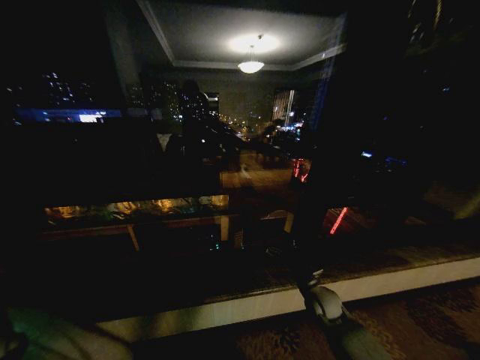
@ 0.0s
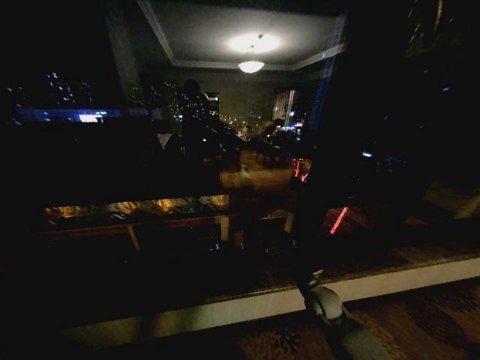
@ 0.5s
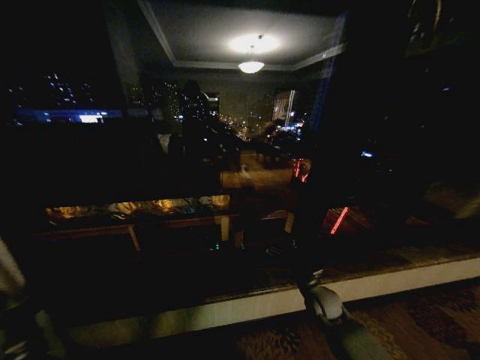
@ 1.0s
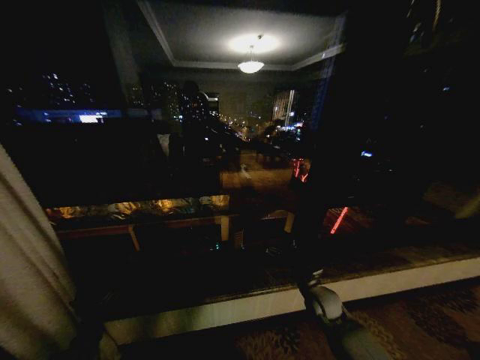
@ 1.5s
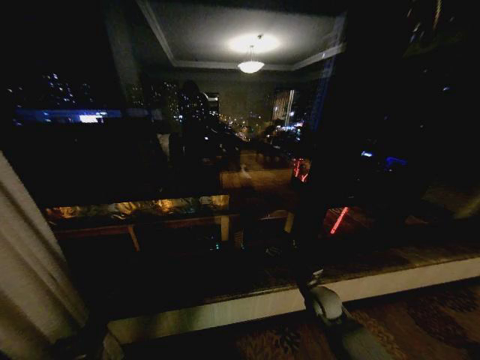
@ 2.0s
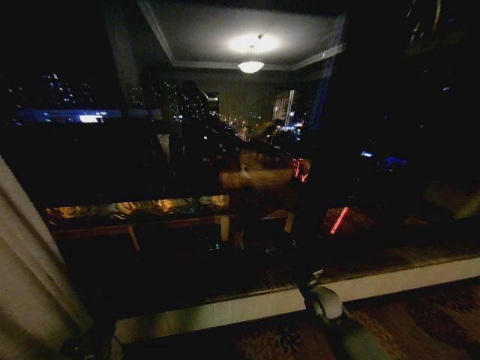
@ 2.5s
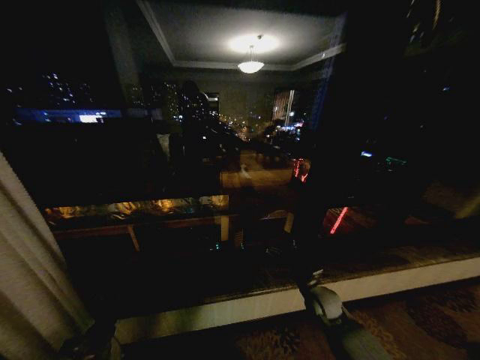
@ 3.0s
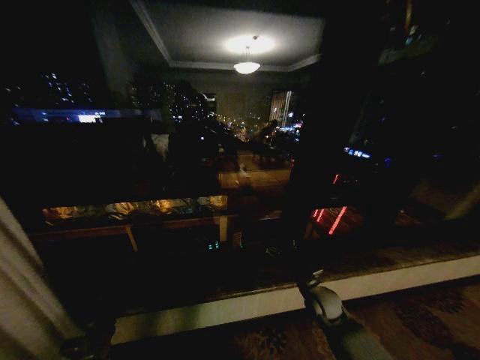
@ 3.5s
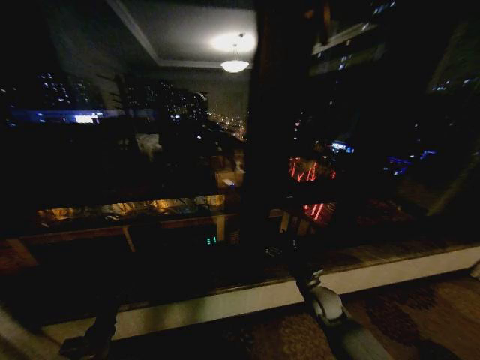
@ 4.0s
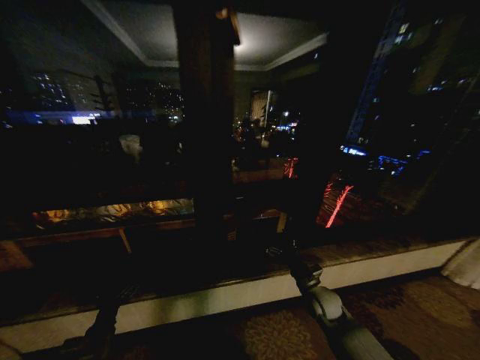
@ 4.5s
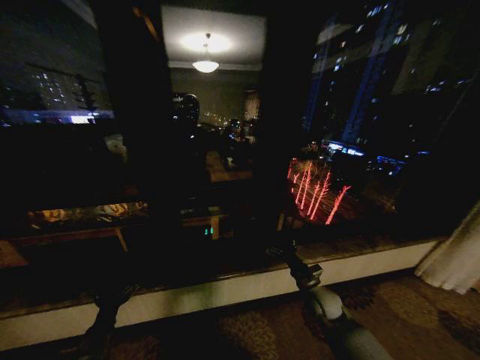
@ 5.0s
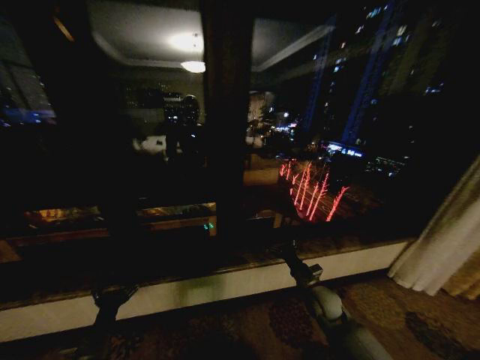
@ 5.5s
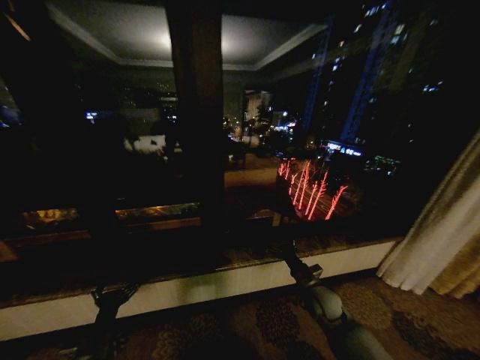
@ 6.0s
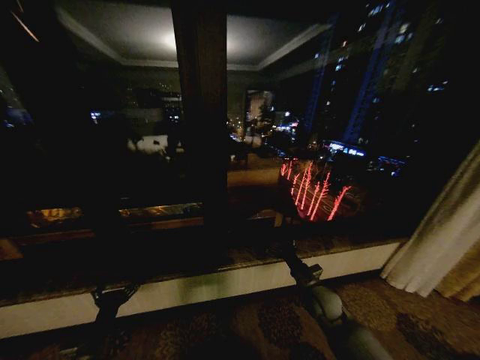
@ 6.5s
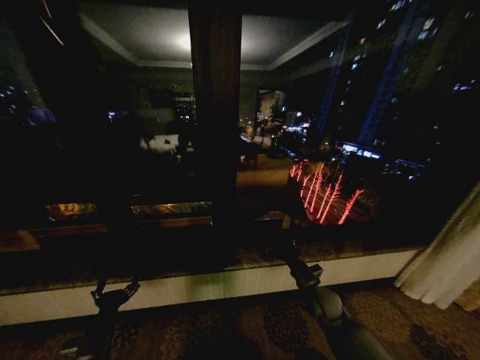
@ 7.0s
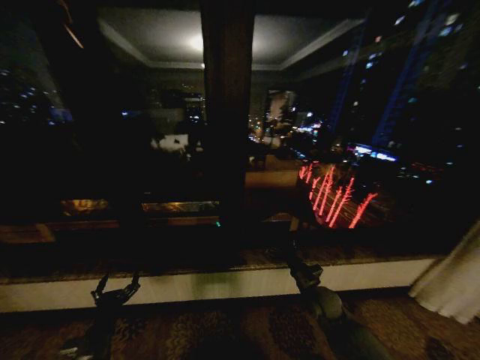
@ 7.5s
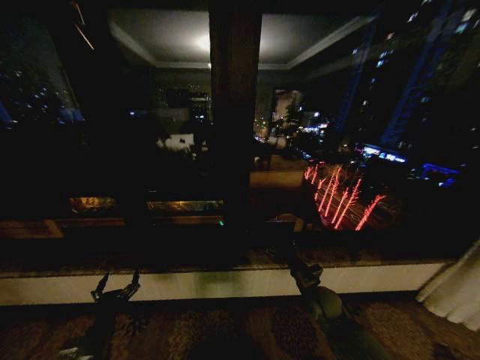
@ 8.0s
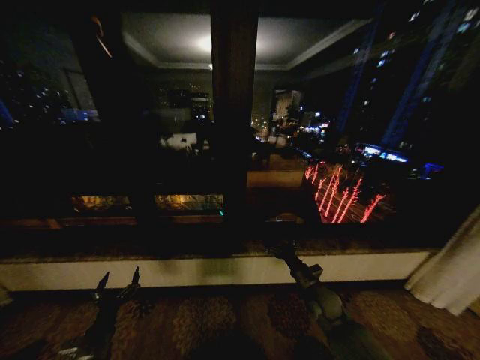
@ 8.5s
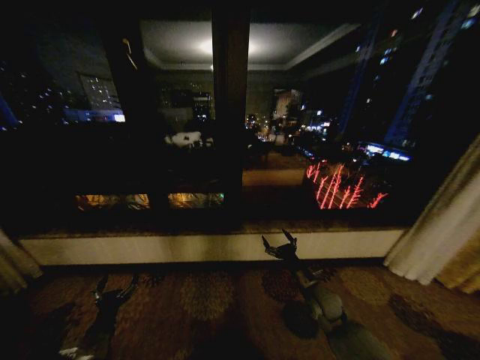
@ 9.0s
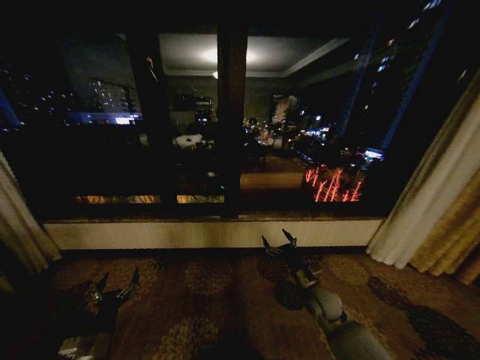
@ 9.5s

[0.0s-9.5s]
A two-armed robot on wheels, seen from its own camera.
Task of the whole recording: Open the curtains by pulling them apart, changing their state from closed to fully open.
0.0s to 2.0s: The left gripper moves to the right, roughly 25 cm, and opens up.
